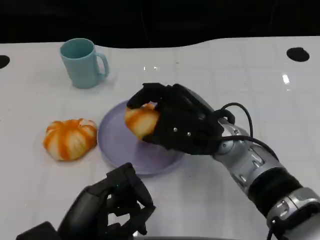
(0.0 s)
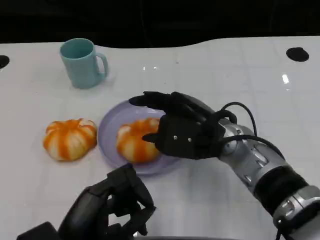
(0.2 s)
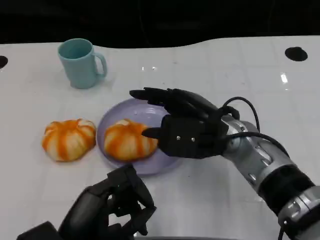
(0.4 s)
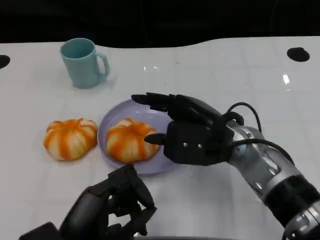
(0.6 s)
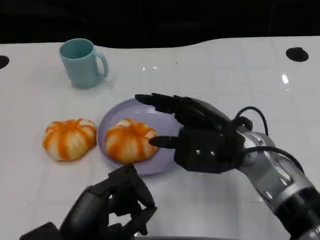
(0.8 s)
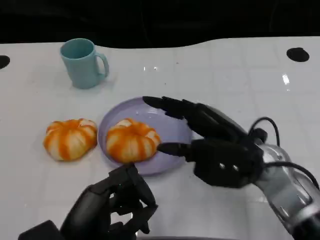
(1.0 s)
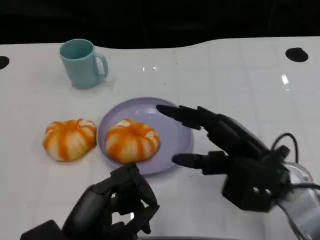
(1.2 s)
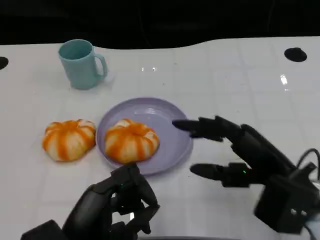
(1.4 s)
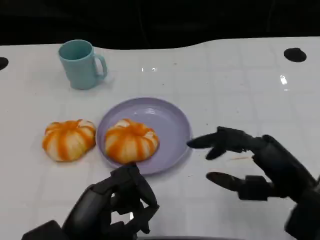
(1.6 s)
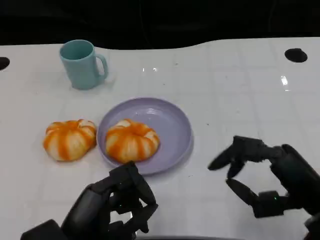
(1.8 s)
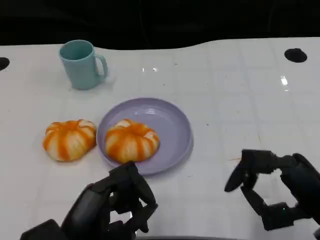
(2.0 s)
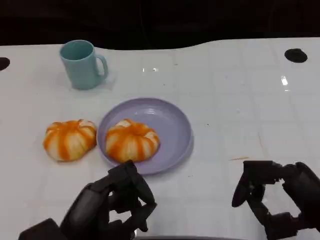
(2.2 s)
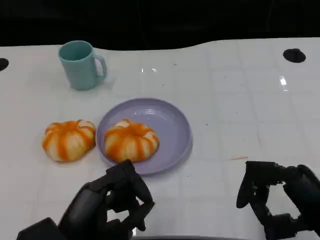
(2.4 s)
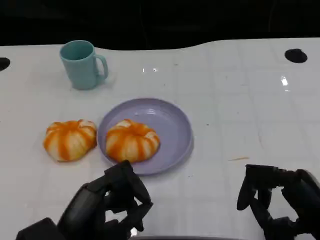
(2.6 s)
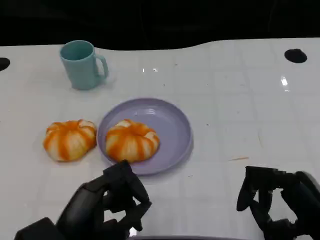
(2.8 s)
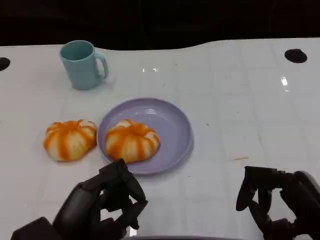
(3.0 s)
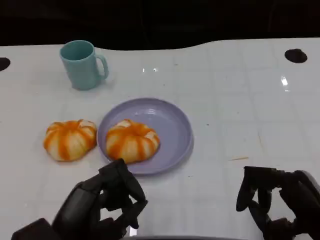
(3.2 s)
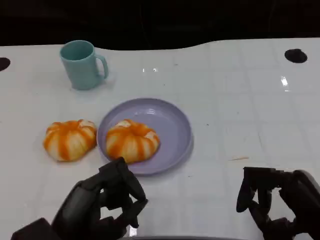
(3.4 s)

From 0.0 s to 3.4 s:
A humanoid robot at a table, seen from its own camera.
Task of the whole recording: Grasp the bread from the table and place it into the plate.
From 0.0 s to 1.6 s: The right hand is displaced to the right and backward by approximately 15 cm.
From 1.6 s to 3.4 s: The right hand moves approximately 5 cm.

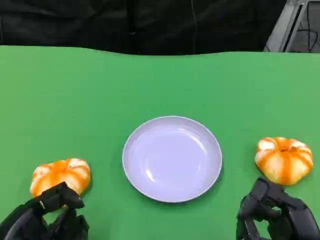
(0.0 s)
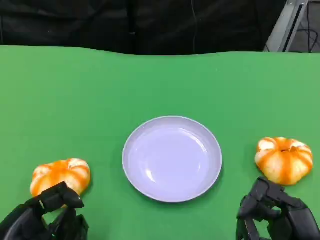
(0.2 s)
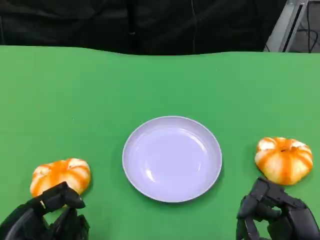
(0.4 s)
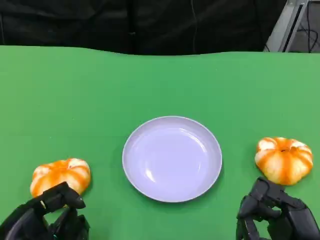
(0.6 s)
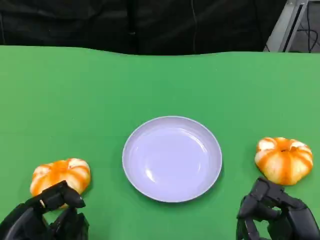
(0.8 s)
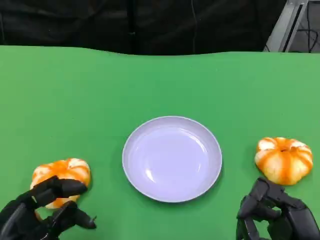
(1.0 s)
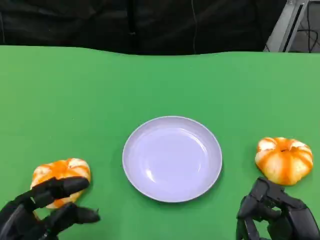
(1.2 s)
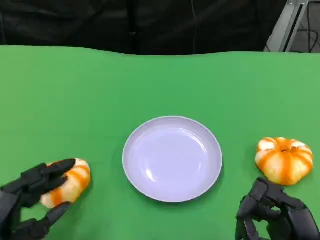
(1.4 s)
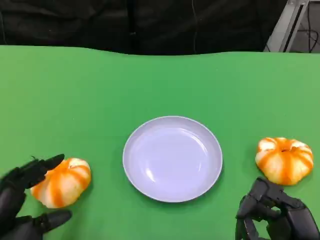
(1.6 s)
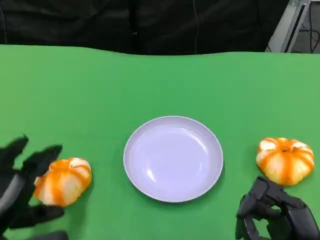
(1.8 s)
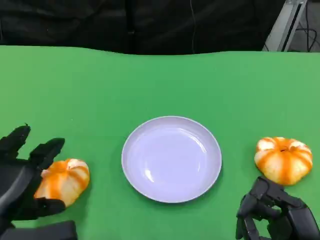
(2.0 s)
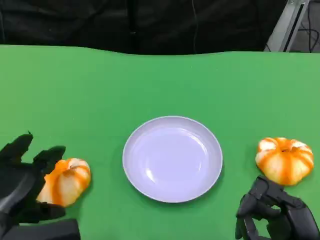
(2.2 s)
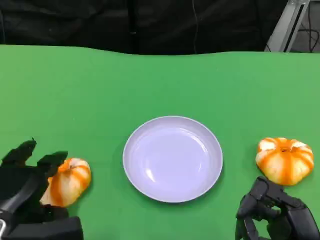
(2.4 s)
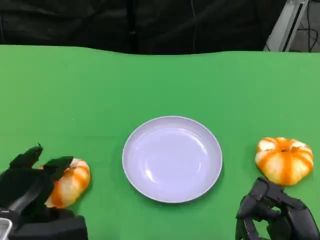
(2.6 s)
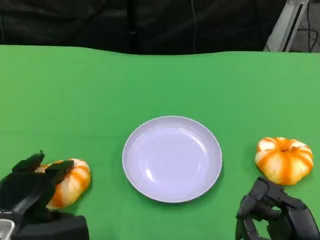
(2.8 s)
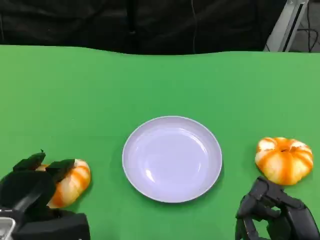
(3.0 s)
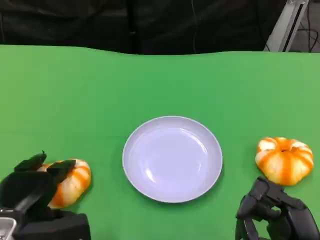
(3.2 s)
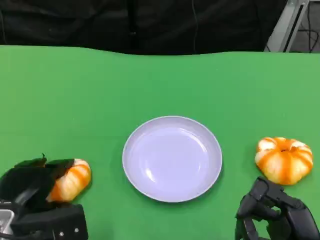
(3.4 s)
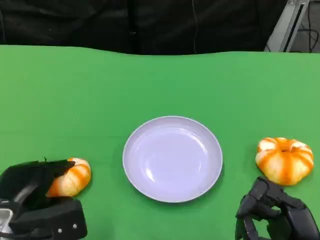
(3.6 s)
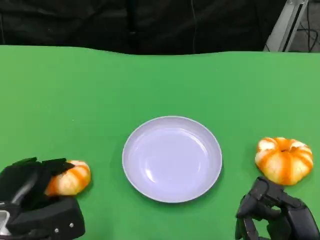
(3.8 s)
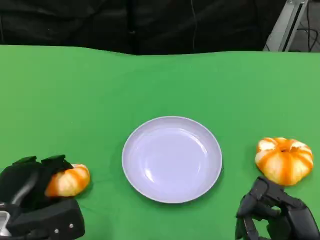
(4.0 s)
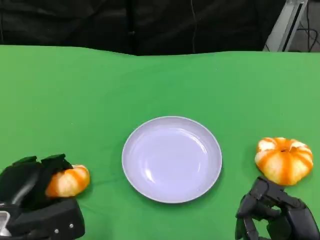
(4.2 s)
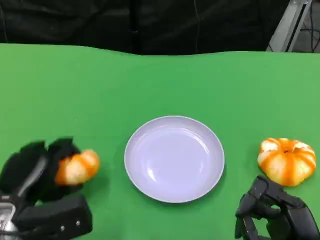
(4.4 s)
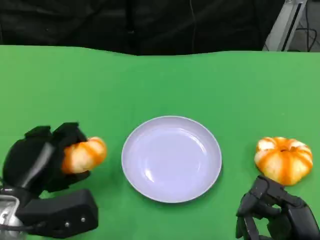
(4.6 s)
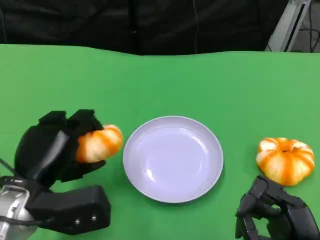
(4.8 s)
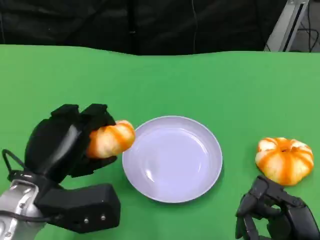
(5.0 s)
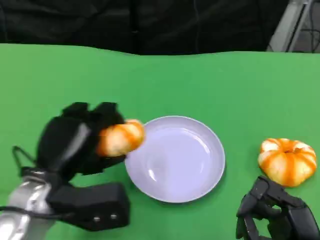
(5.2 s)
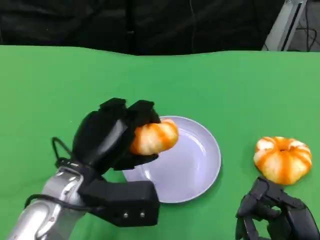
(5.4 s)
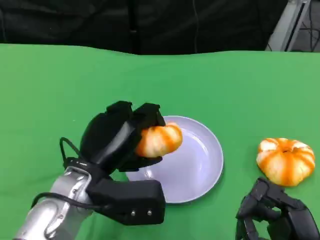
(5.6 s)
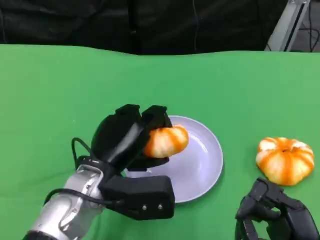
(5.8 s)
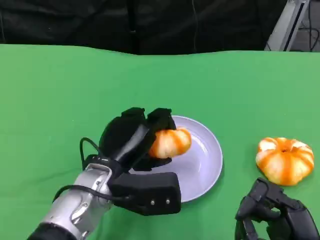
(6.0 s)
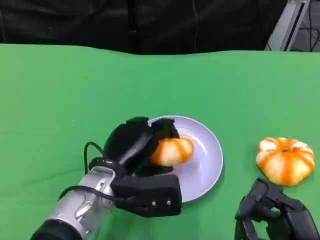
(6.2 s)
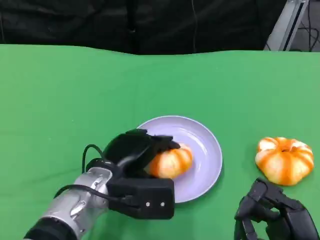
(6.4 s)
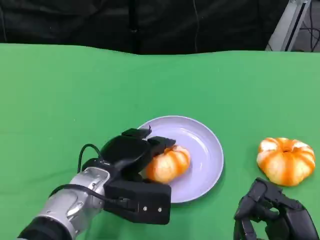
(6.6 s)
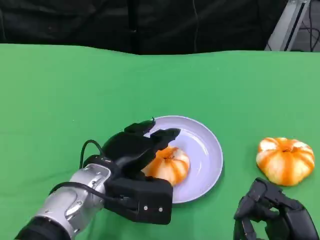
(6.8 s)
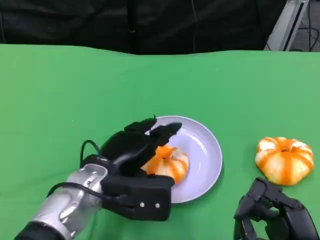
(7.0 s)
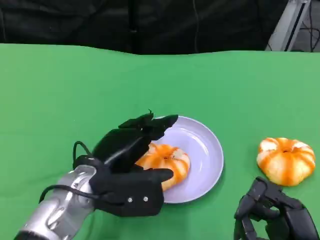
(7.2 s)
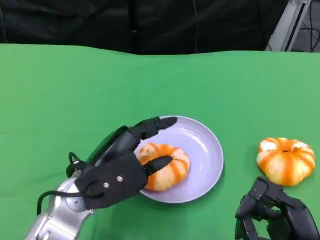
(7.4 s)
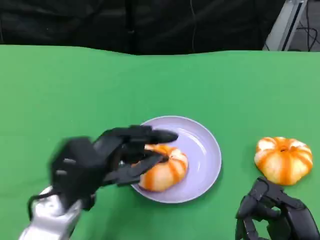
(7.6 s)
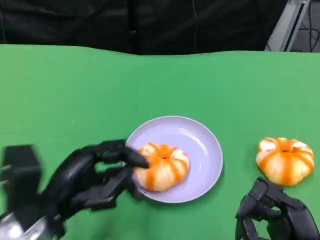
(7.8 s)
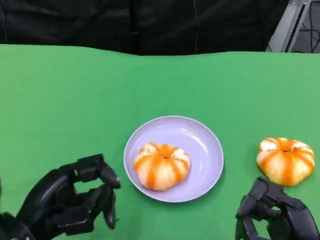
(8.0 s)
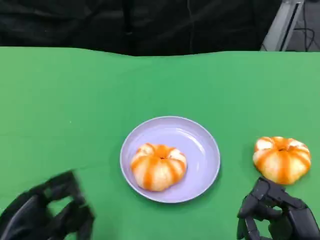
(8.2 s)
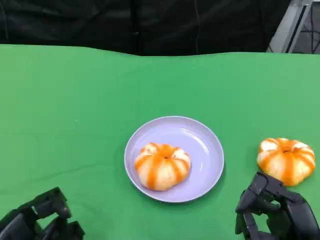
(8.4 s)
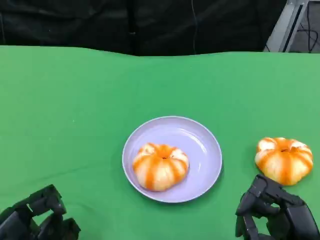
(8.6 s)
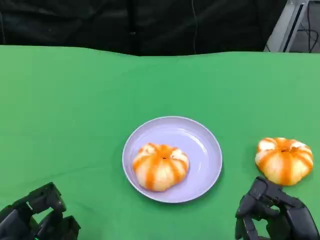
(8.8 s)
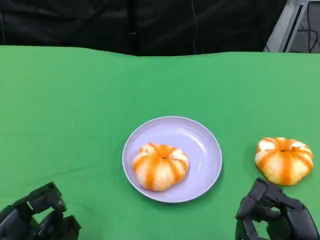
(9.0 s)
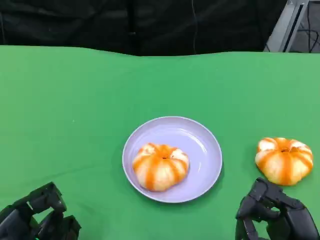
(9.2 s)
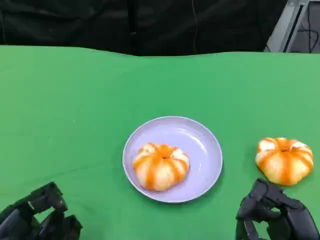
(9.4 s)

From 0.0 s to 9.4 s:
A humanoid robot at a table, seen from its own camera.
Task of the whole recording: Grasp the bread from the table and place it into the plate.
From 1.6 s to 3.2 s: The left hand shifts roughly 5 cm forward.
From 3.2 s to 4.8 s: The left hand goes about 5 cm upward.
From 4.8 s to 6.2 s: The left hand goes about 10 cm to the right.
From 6.2 s to 7.8 s: The left hand is displaced to the left and backward by about 15 cm.
From 7.8 s to 9.4 s: The left hand heads to the left, backward and downward, covering approximately 10 cm.

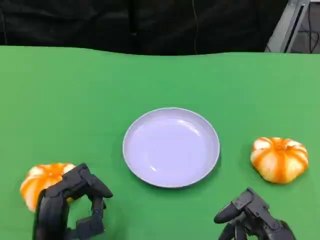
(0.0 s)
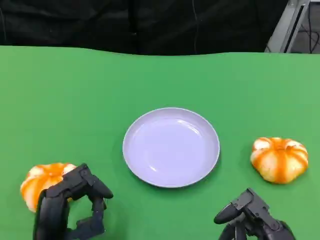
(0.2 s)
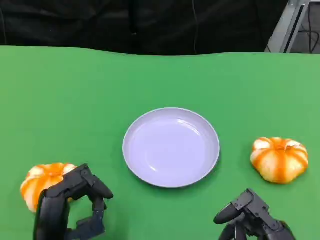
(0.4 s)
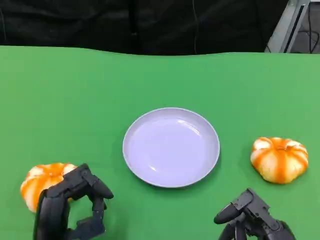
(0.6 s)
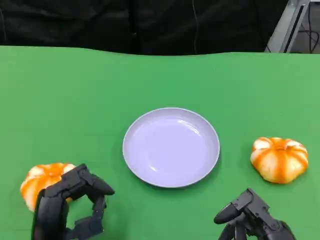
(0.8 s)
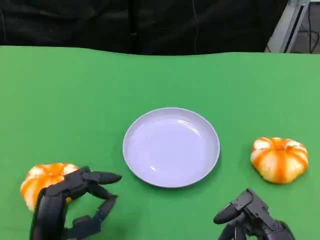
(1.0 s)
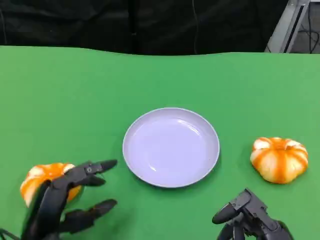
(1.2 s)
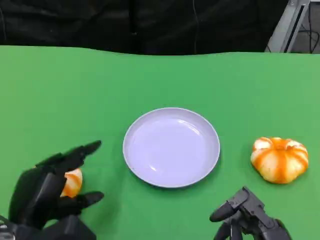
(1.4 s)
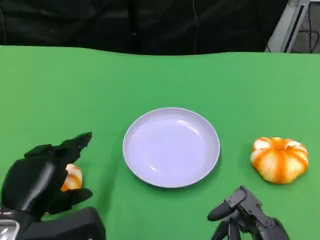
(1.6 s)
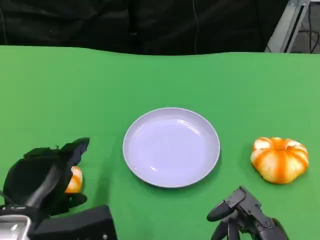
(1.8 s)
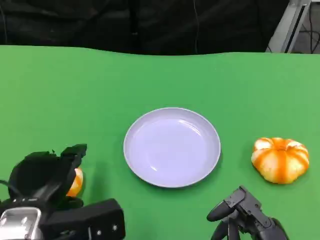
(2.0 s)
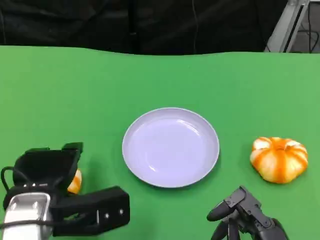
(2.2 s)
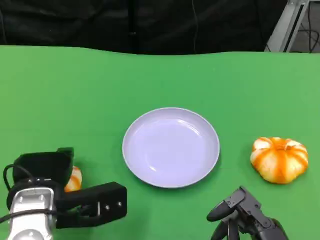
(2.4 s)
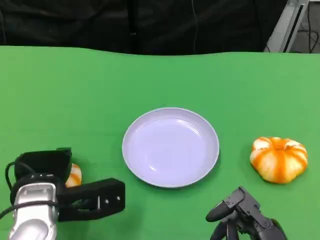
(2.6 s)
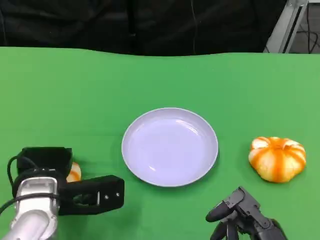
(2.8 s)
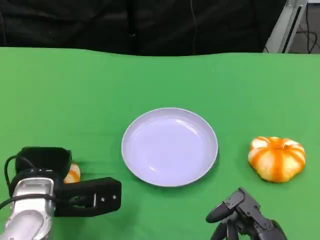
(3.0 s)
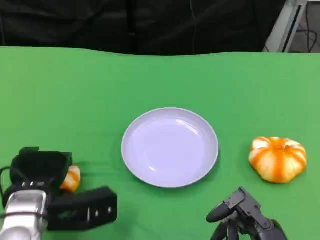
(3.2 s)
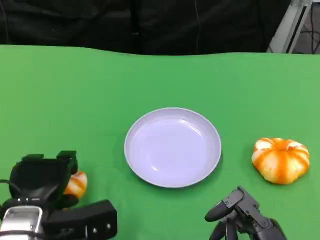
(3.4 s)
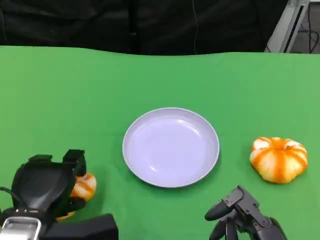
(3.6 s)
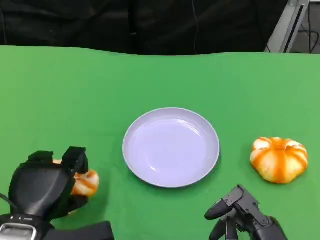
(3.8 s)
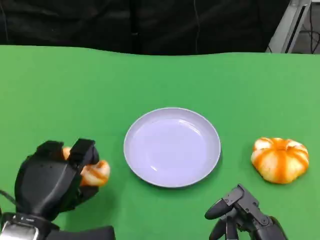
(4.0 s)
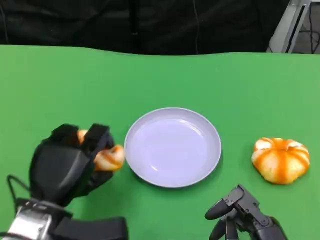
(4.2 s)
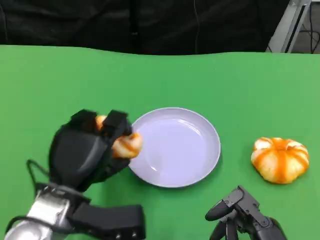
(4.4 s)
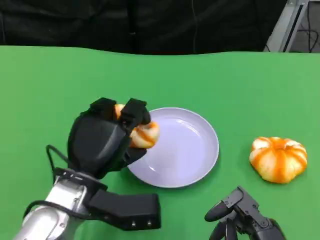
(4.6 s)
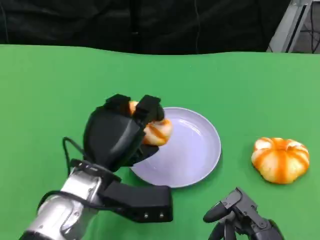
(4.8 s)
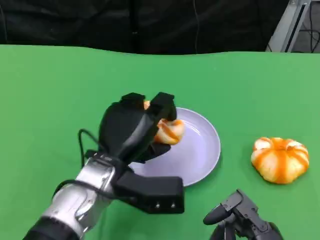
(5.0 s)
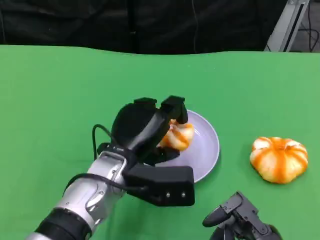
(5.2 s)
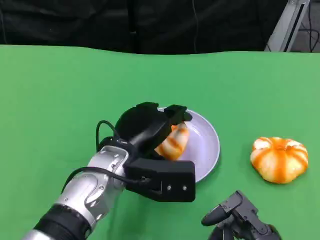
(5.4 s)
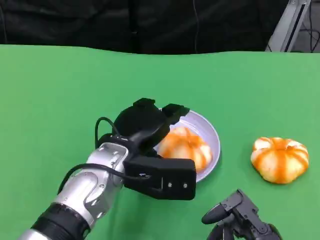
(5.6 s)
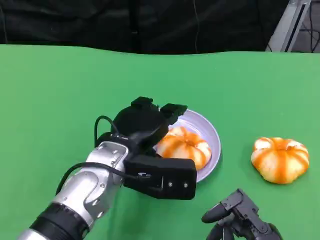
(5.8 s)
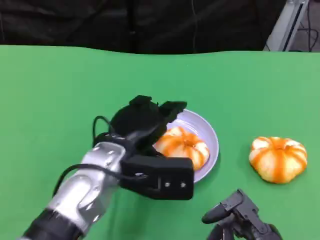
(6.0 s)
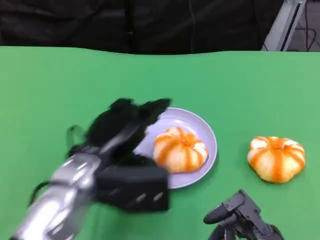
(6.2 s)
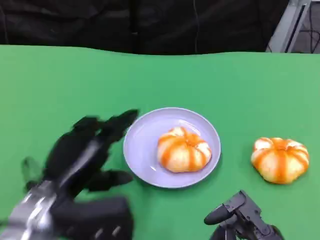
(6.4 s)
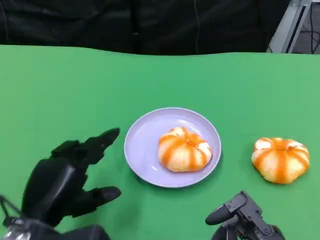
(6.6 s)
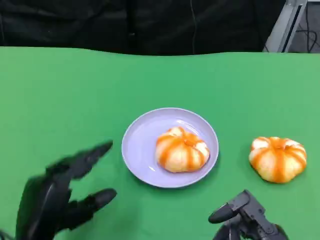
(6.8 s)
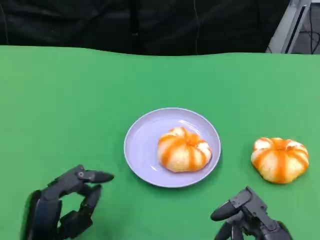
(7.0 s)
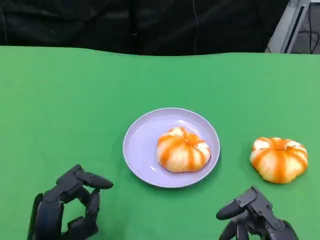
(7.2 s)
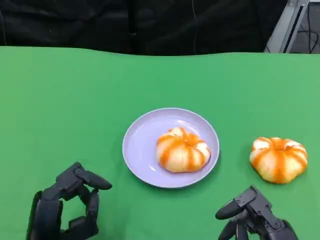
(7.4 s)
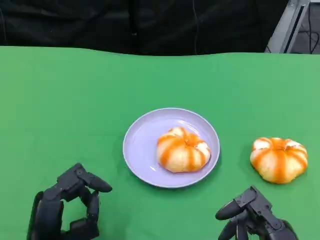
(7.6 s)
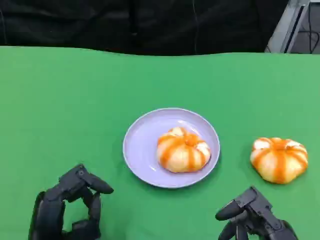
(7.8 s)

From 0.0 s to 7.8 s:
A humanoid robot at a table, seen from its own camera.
Task of the whole recording: Grasp the bread from the table and place it into the plate.
From 0.0 s to 1.6 s: The left hand goes some 5 cm upward.
From 3.2 s to 4.6 s: The left hand goes approximately 5 cm to the right.
From 6.2 s to 7.8 s: The left hand travels backward and downward by roughly 15 cm.

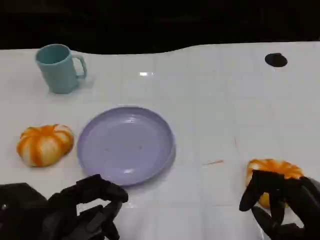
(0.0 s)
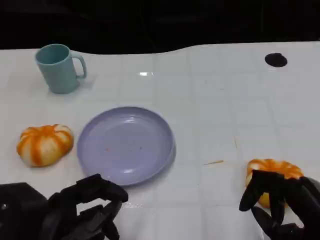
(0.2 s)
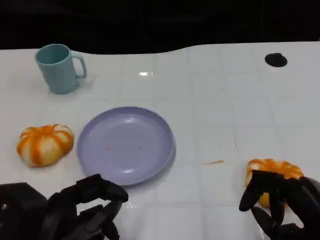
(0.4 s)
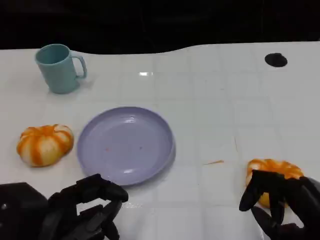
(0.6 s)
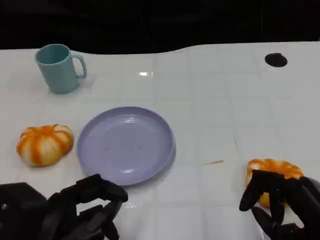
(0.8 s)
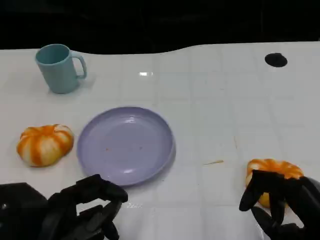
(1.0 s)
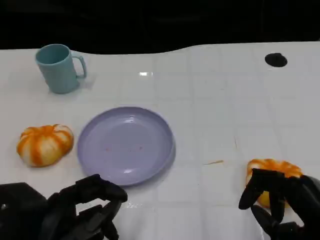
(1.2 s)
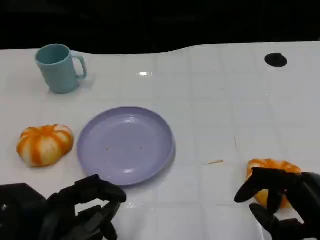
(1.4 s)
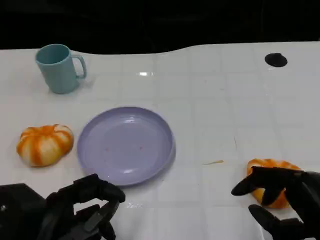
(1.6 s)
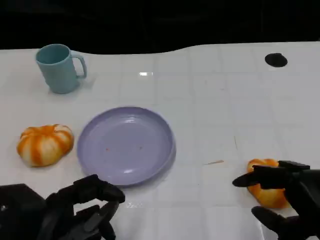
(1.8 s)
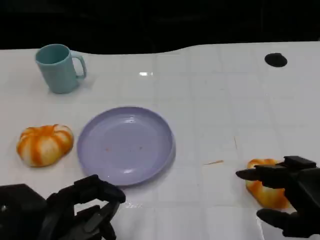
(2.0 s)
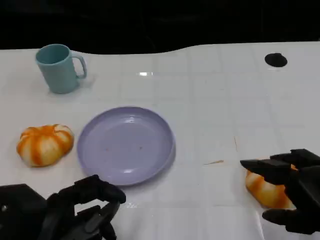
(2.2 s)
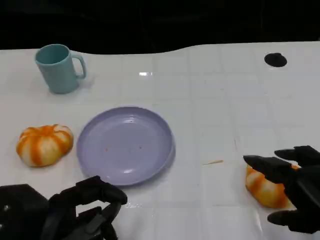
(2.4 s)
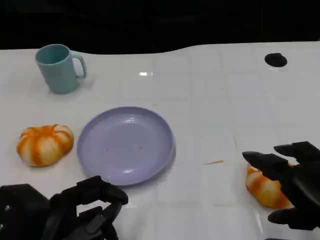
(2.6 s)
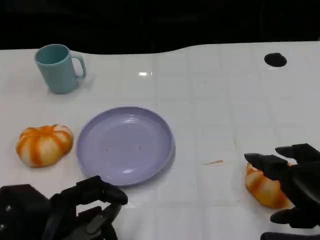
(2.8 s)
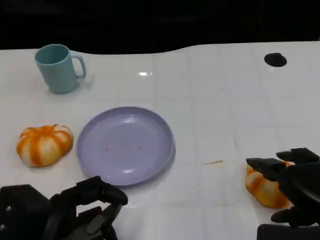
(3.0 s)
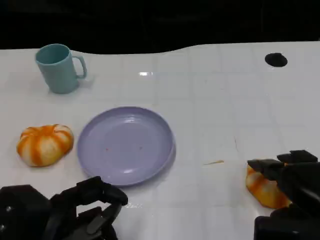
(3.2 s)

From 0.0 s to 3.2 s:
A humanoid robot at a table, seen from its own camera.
Task of the whole recording: Grasp the bread from the table and place it into the plate.
From 0.0 s to 1.6 s: There are only small adjustments of the hands.
